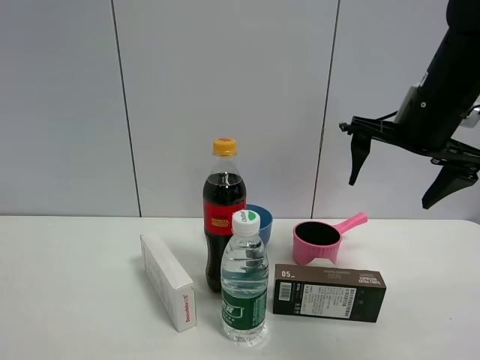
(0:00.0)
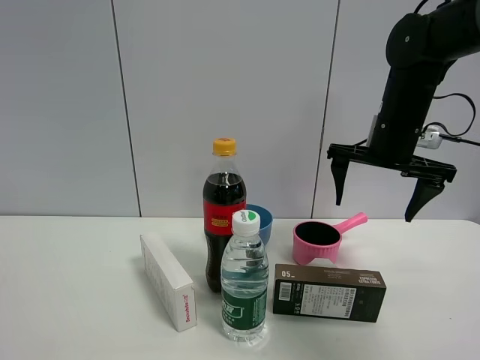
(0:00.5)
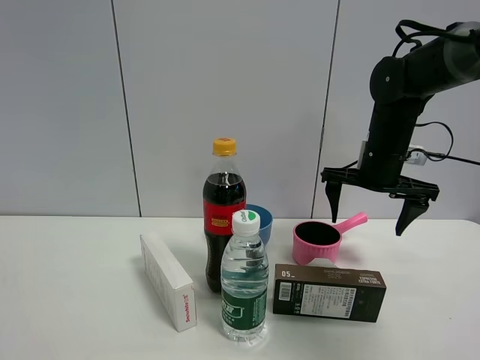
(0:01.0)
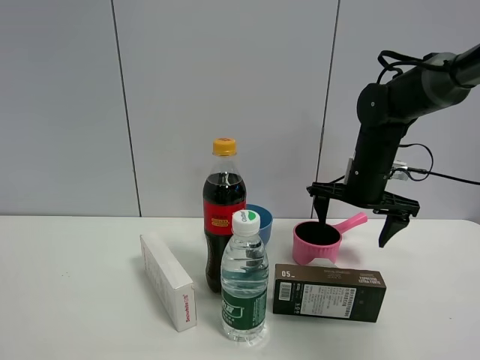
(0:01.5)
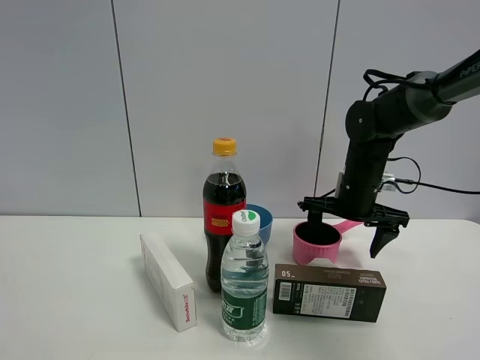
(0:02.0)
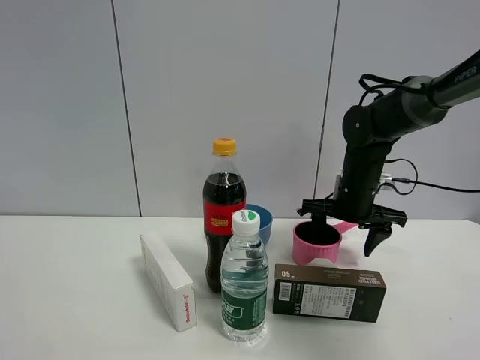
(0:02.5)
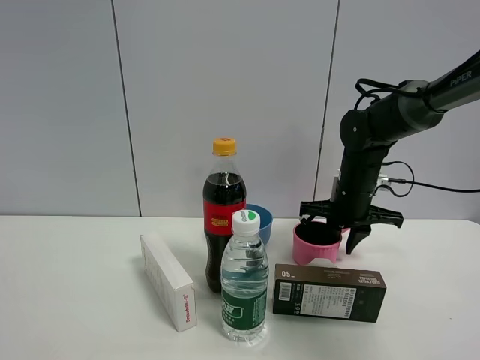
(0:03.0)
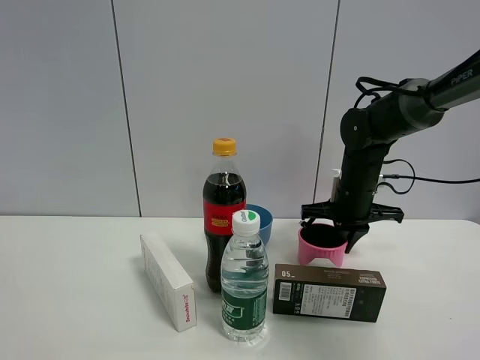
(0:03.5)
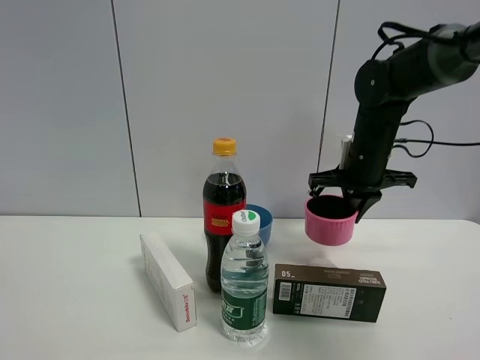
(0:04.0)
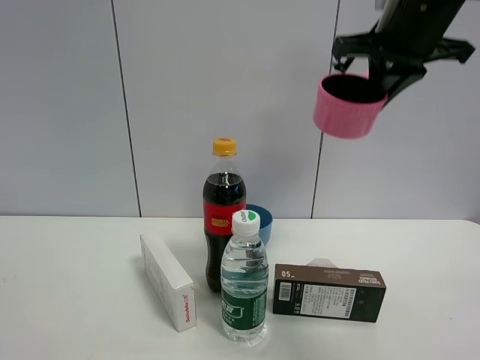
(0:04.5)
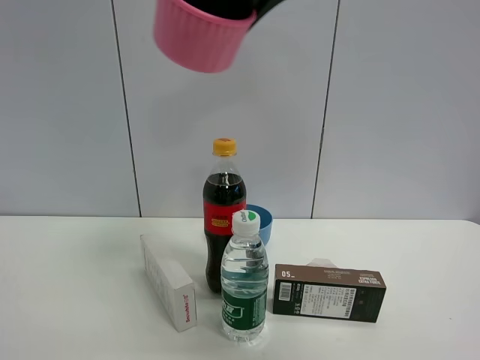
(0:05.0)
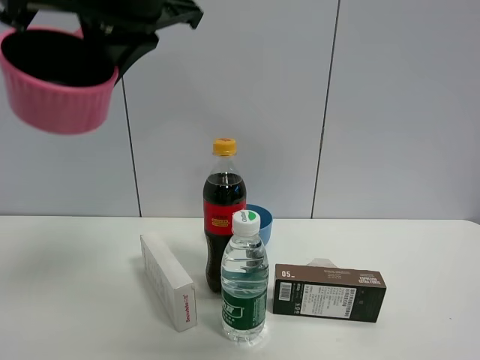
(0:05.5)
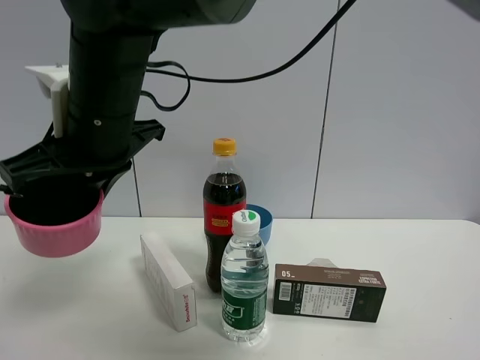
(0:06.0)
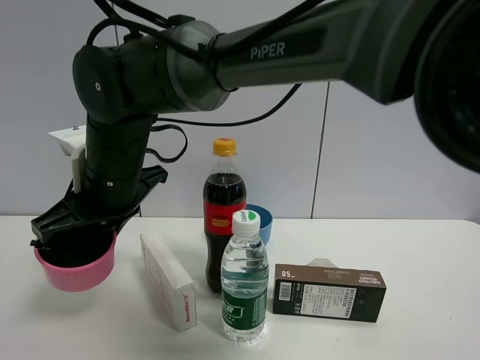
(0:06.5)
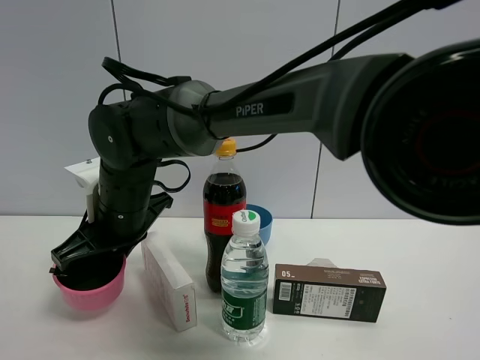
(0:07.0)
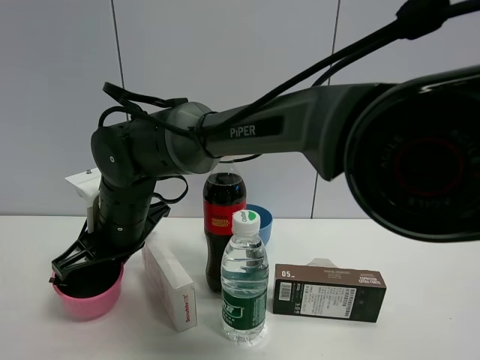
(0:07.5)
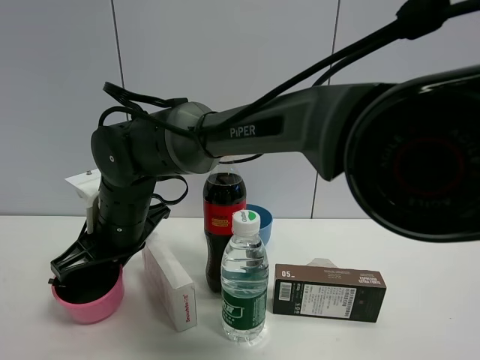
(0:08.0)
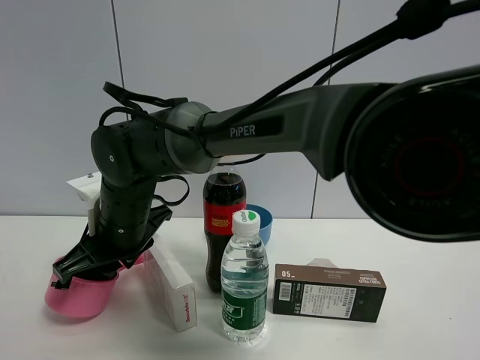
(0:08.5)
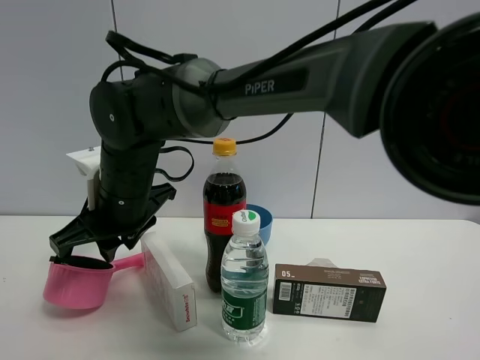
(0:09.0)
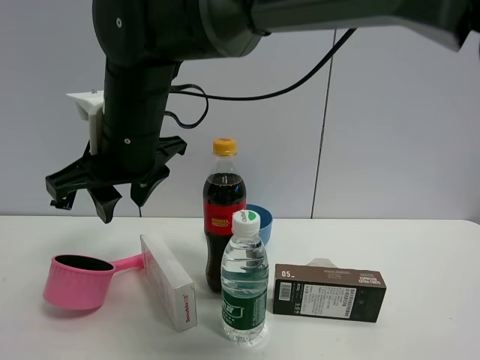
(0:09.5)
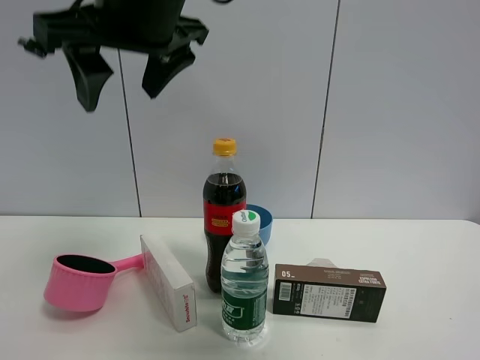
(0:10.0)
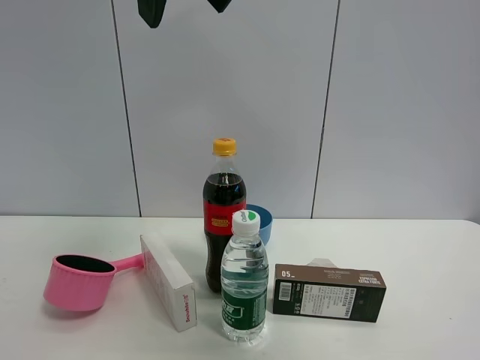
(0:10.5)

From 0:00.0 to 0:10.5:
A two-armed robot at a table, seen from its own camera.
Task of the whole recording: the gripper move the object.
Step, from 0:00.0 to 0:03.0: Grasp the pink pot with the right gripper.
Step, from 0:03.5 to 0:09.0: Place the pink pot on the table with the right gripper.
From 0:00.0 to 0:02.0: The right gripper goes approximately 15 cm downward and forward.
From 0:02.0 to 0:04.0: The right gripper shifts about 5 cm upward, and closes its fingers.
From 0:04.0 to 0:06.5: The right gripper moves to the left, about 35 cm.
From 0:06.5 to 0:08.5: The right gripper shifts approximately 5 cm downward.
From 0:08.5 to 0:10.5: The right gripper shifts roughly 30 cm upward, and opens its fingers.

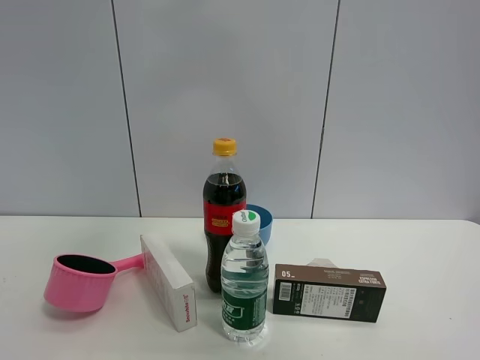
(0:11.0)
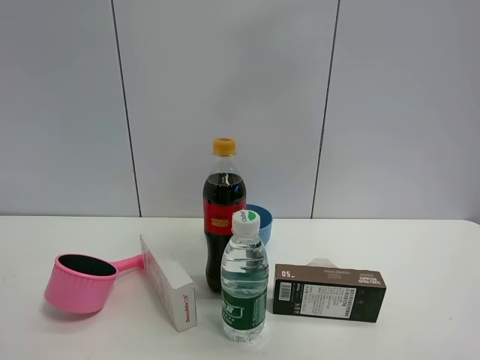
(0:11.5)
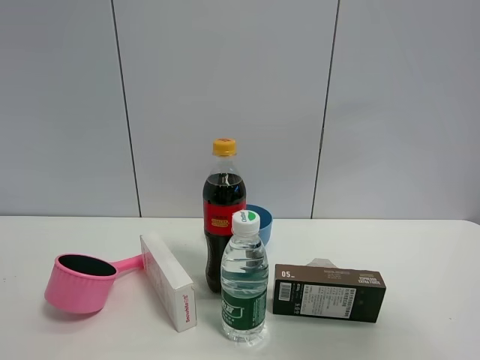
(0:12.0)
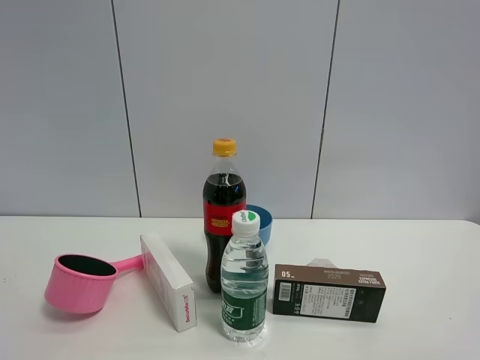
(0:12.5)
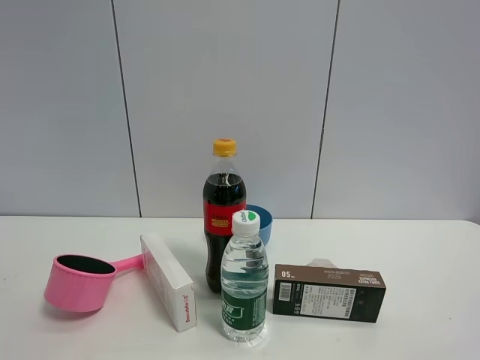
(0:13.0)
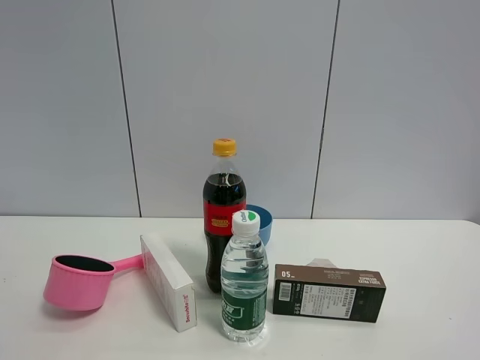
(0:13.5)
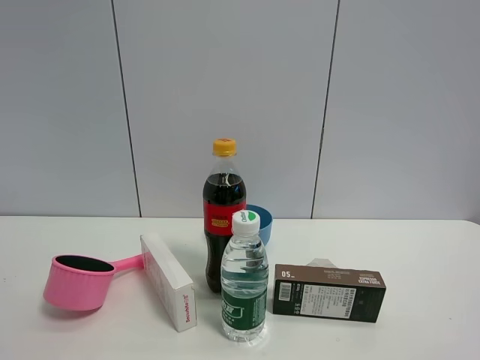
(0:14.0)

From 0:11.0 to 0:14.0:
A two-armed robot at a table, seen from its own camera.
Task of the whole recording: the gripper move the object.
From 0:11.0 to 0:12.5: The right gripper shifts approximately 40 cm to the right, backward and downward.

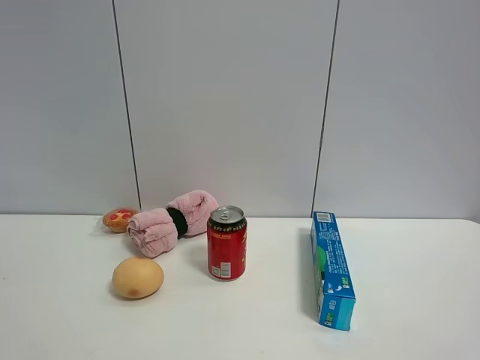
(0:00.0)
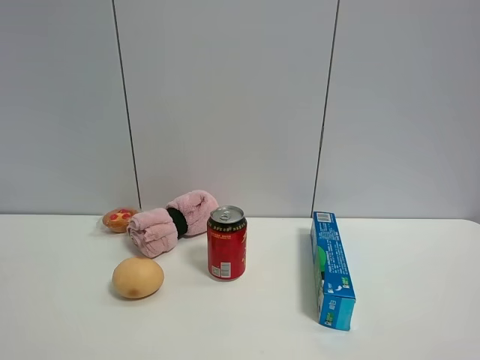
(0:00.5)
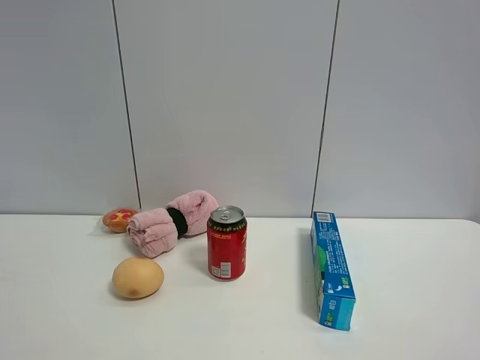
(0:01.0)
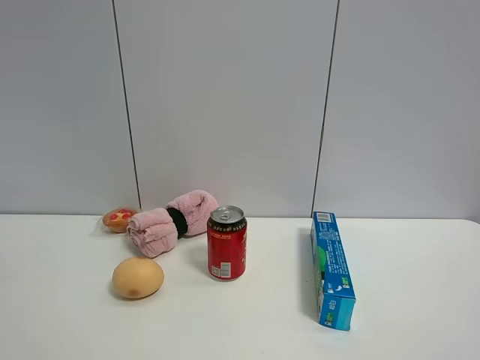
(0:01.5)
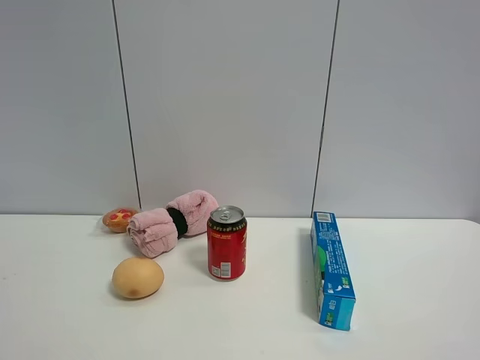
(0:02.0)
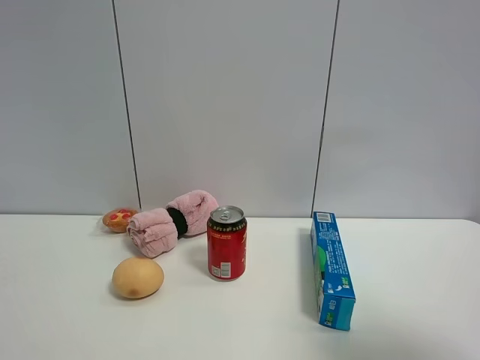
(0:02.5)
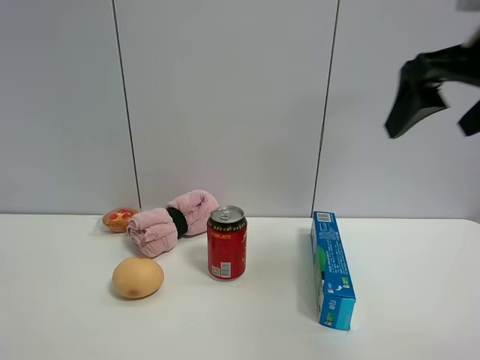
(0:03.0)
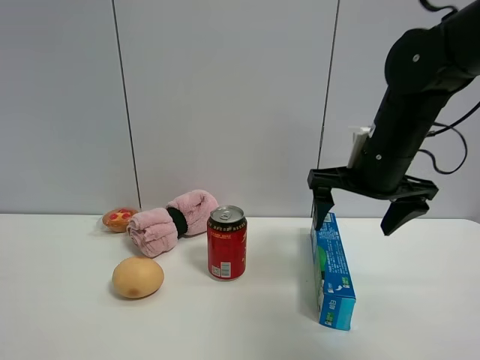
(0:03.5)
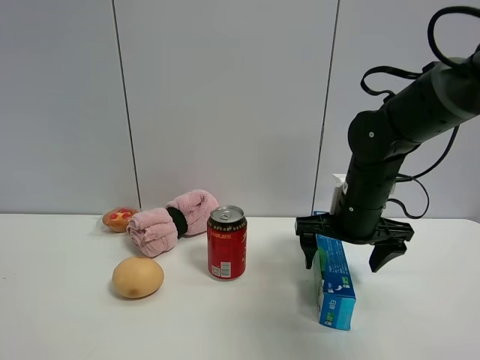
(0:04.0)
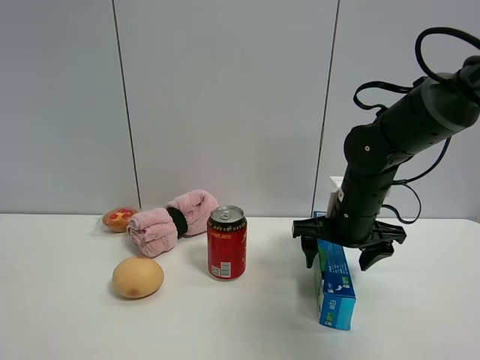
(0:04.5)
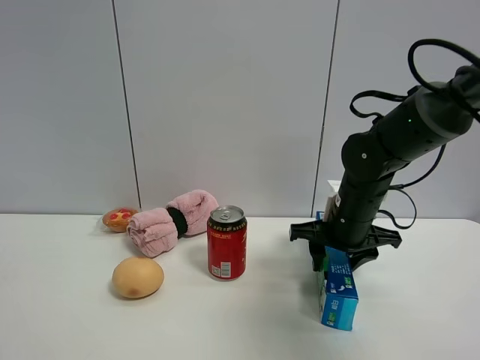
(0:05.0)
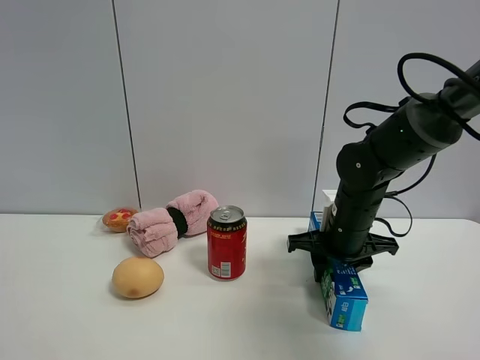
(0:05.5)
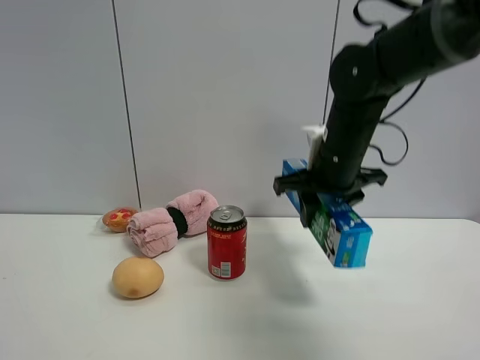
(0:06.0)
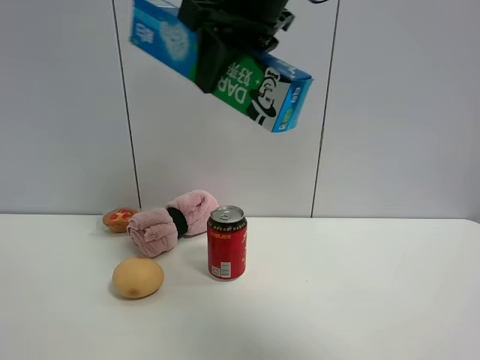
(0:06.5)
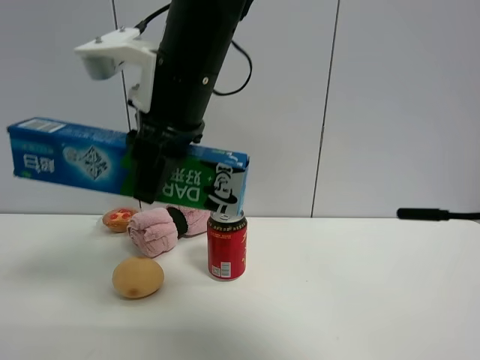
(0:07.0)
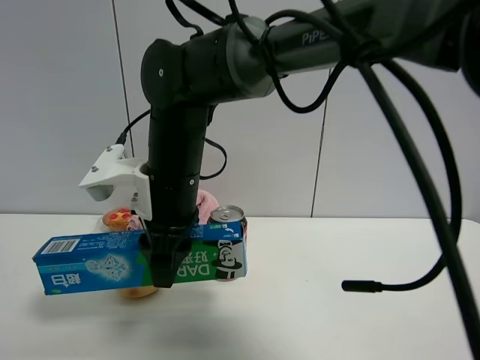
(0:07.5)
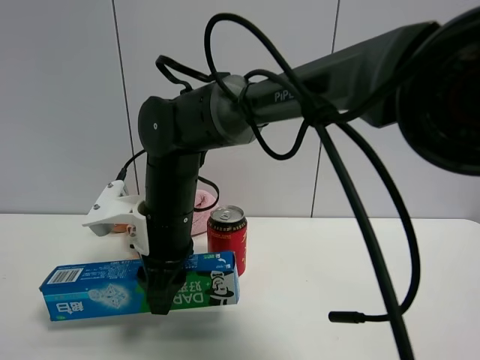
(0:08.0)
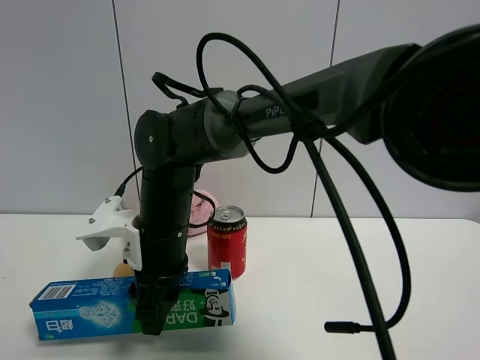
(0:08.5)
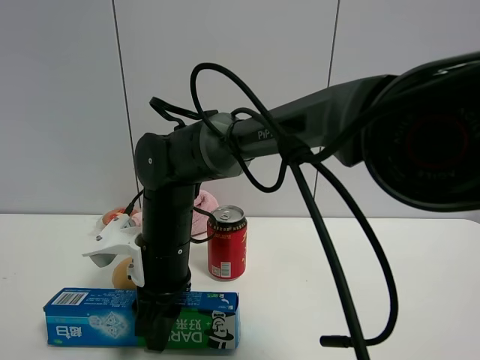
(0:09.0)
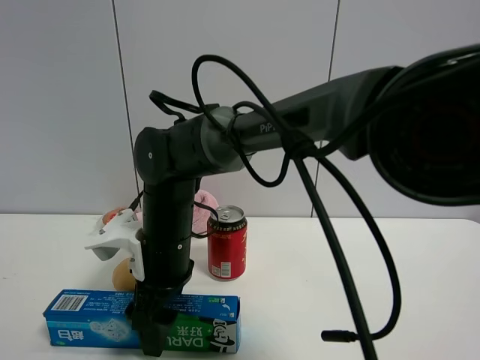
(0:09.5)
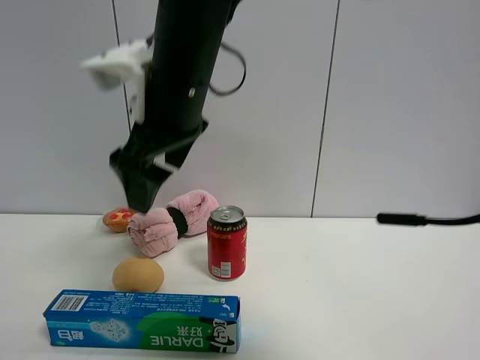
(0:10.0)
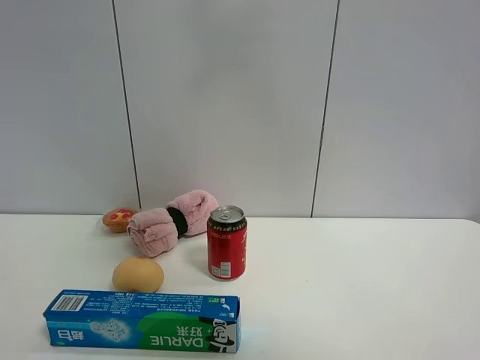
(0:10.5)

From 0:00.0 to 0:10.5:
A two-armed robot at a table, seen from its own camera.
Task of the whole recording: the gripper move the object.
Step, from 0:00.0 to 0:05.5: Grasp the toothpaste with the right gripper.
Step, from 0:06.0 to 0:09.5: Place the toothpaste on the table with the right gripper.
From 0:00.0 to 0:02.0: Both grippers stay put.
From 0:02.0 to 0:04.0: The right gripper heads forward, covering approximately 35 cm.
From 0:04.0 to 0:06.5: The right gripper travels upward and to the left by approximately 30 cm, and closes its fingers.
From 0:06.5 to 0:08.5: The right gripper travels downward by roughly 25 cm.
From 0:08.5 to 0:10.5: The right gripper travels upward and to the right by about 40 cm, and opens.

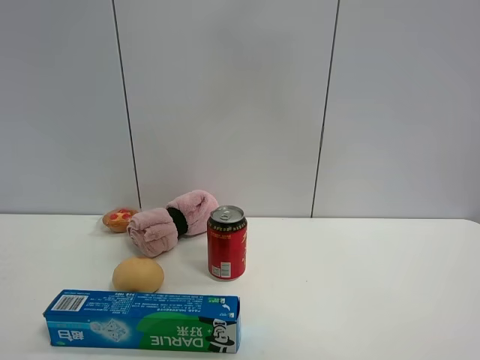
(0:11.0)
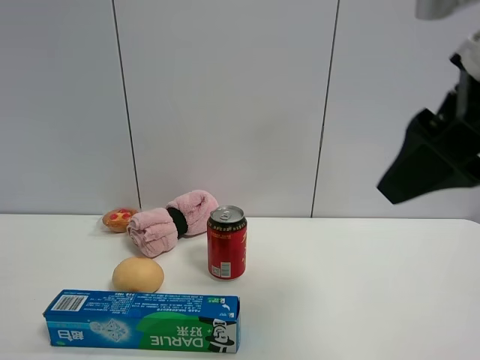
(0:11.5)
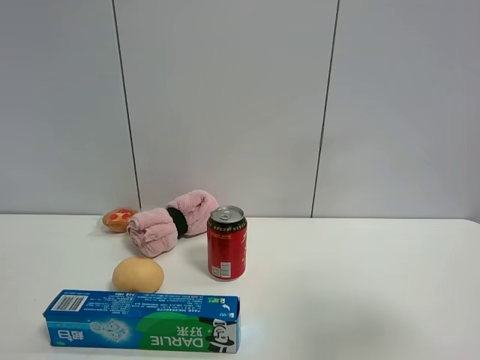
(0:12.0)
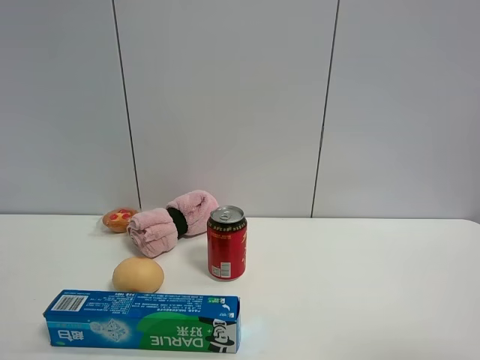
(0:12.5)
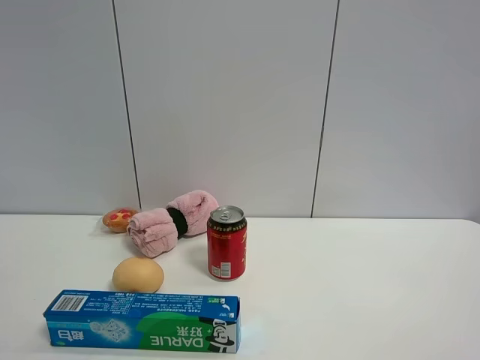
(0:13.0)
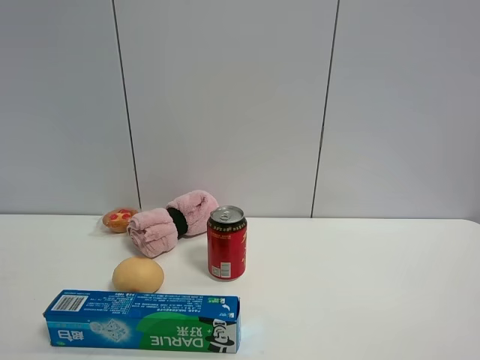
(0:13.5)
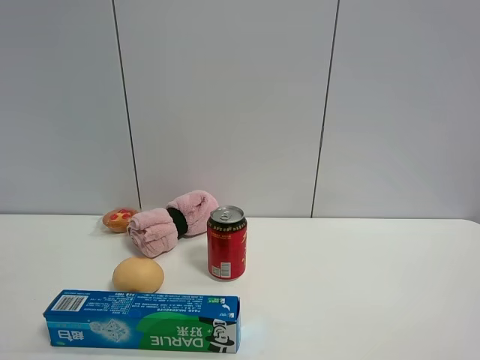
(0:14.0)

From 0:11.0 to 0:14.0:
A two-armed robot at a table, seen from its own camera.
Task of the whole recording: the gripper move the object.
From 0:11.0 to 0:12.5: The right gripper travels to the right, backward and downward by approximately 30 cm.
